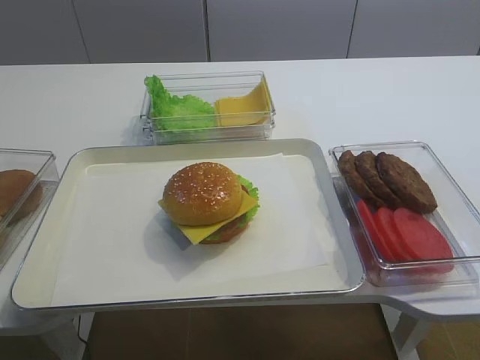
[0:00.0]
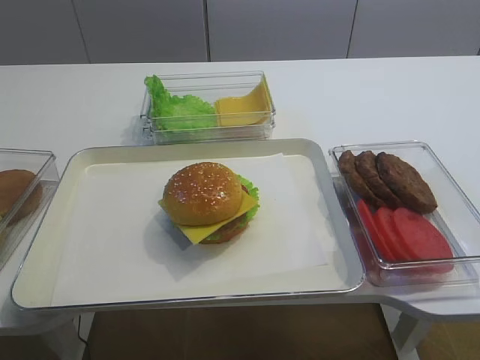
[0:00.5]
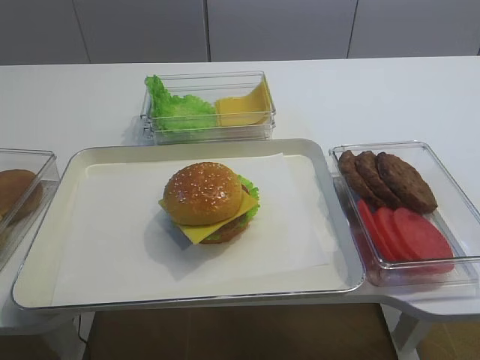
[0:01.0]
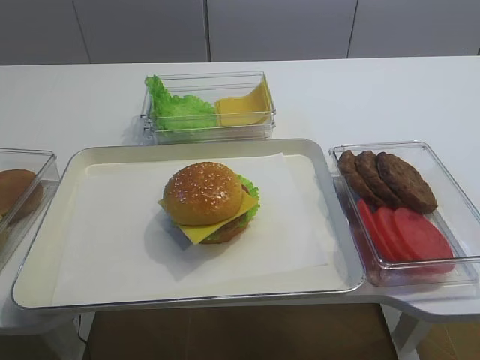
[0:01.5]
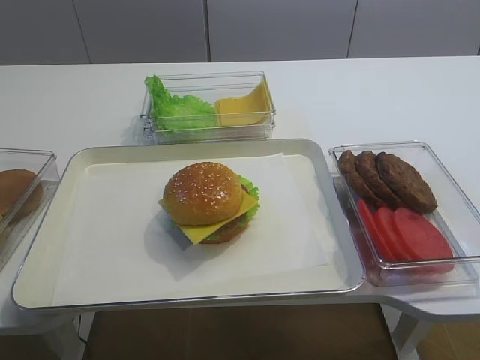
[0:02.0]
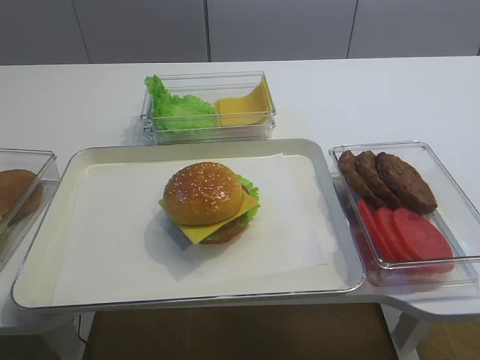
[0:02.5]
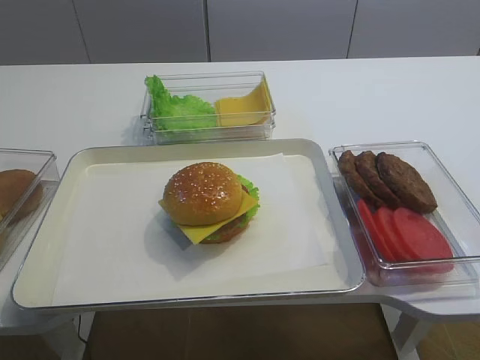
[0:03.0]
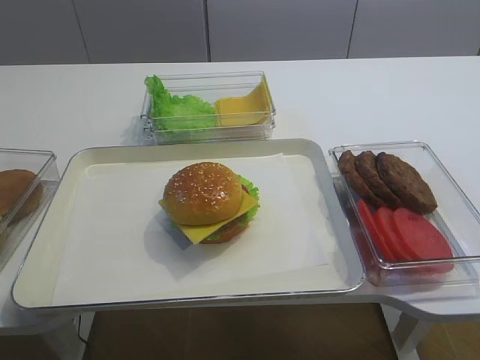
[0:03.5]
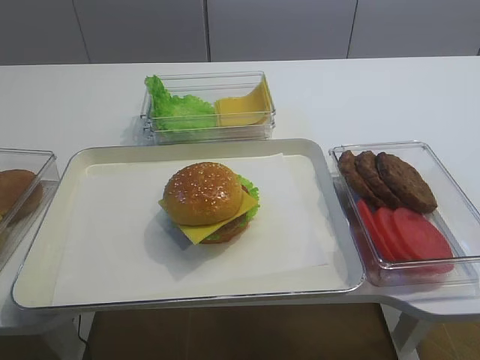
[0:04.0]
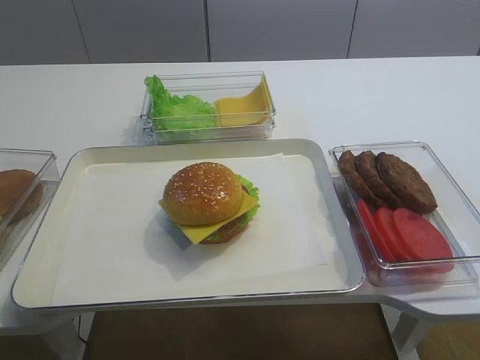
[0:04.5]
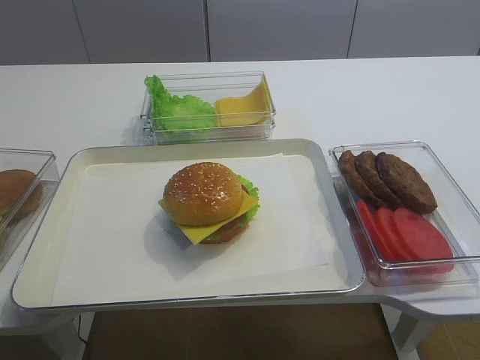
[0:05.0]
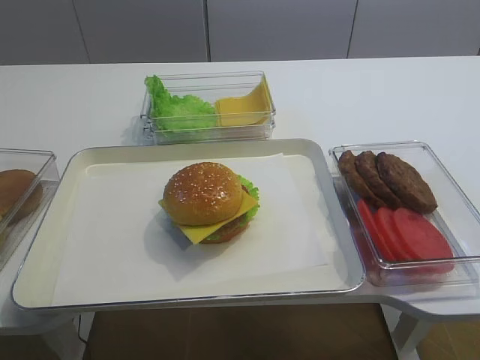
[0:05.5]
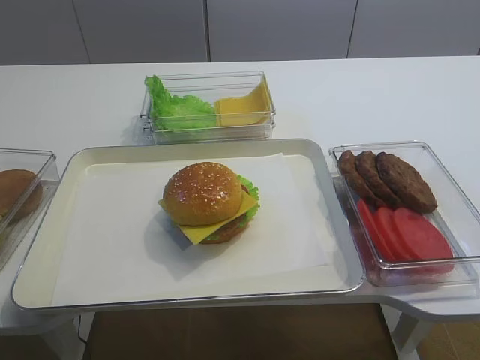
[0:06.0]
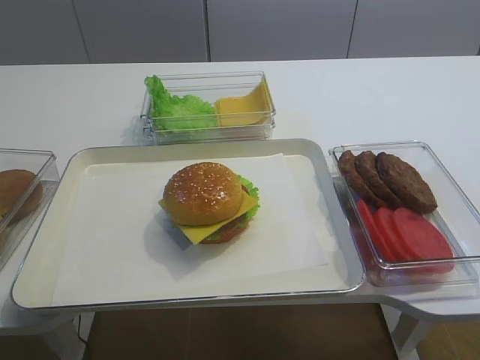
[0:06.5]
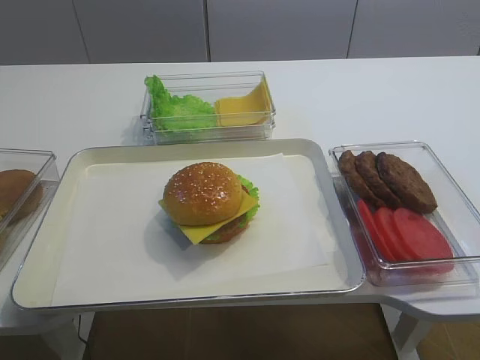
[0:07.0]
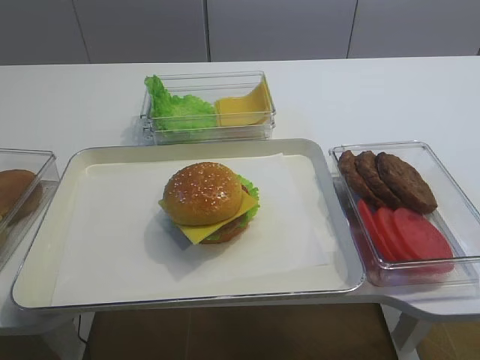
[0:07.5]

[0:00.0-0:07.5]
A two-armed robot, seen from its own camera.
0:00.0 to 0:07.5: Neither gripper changes place.

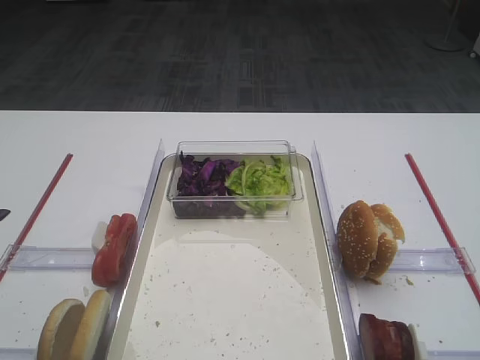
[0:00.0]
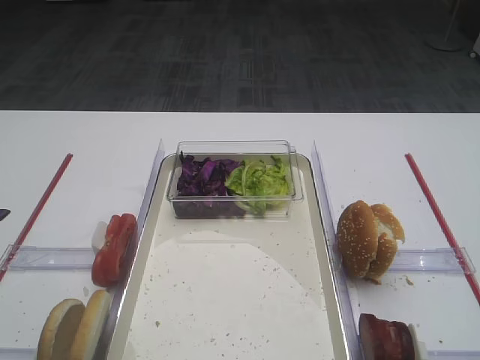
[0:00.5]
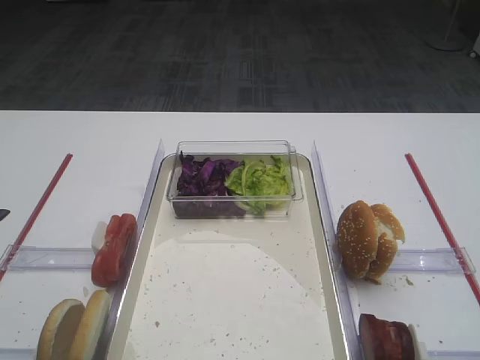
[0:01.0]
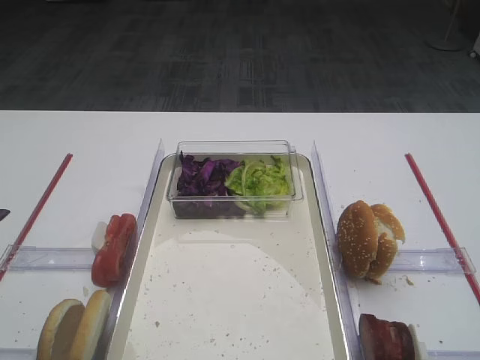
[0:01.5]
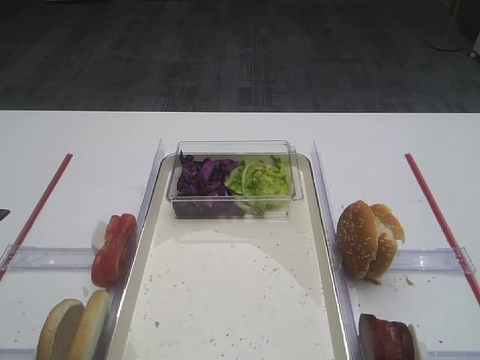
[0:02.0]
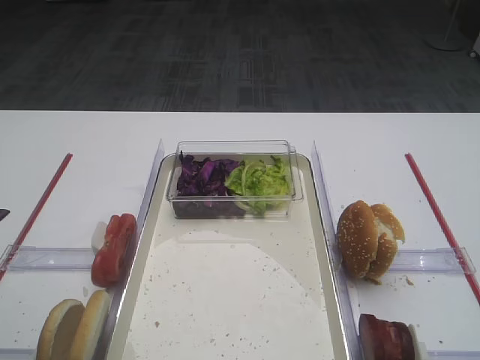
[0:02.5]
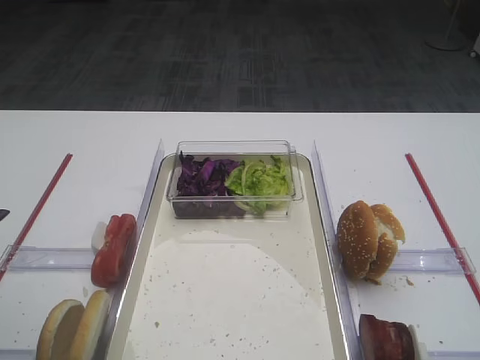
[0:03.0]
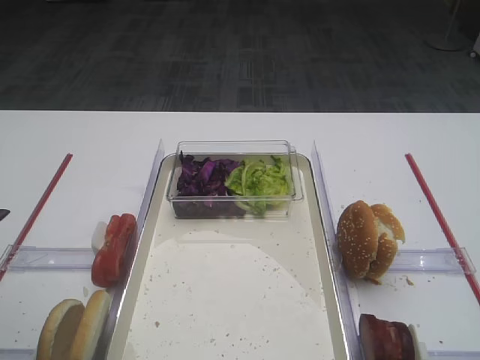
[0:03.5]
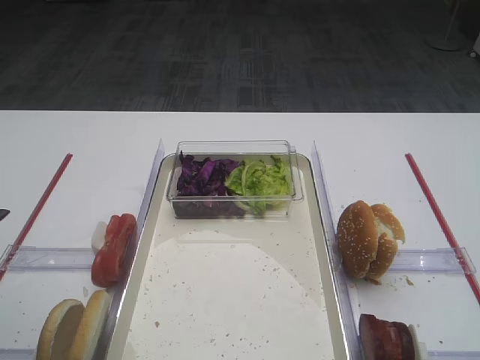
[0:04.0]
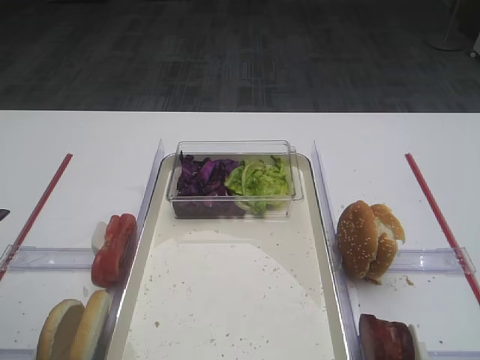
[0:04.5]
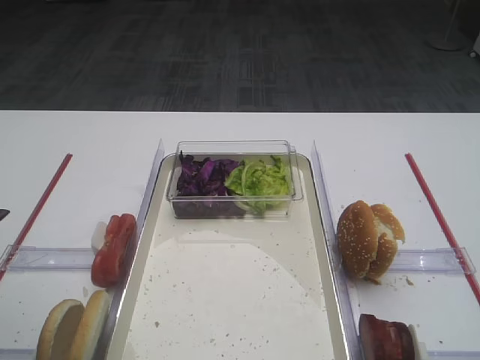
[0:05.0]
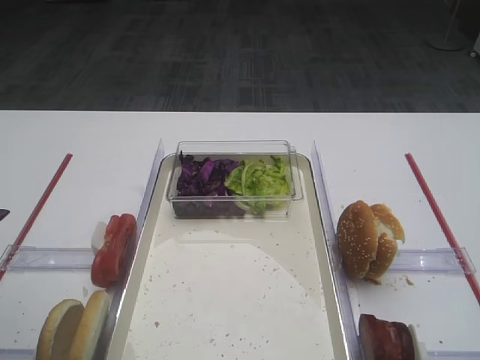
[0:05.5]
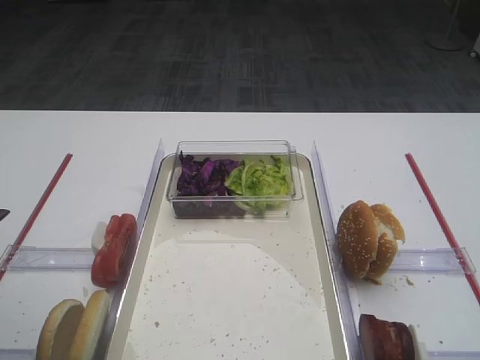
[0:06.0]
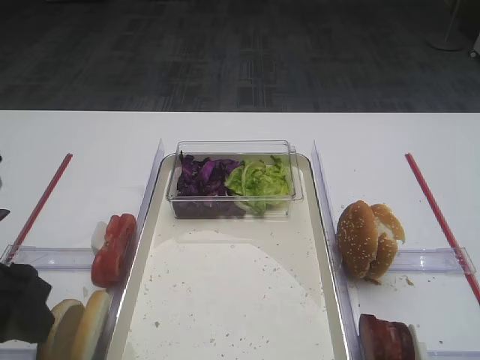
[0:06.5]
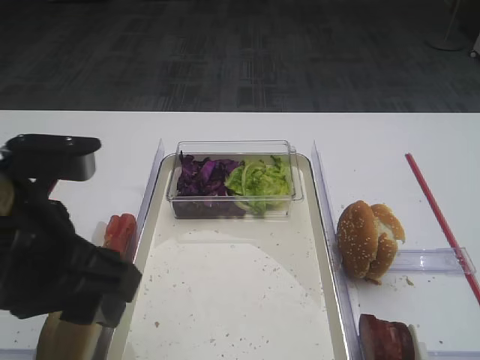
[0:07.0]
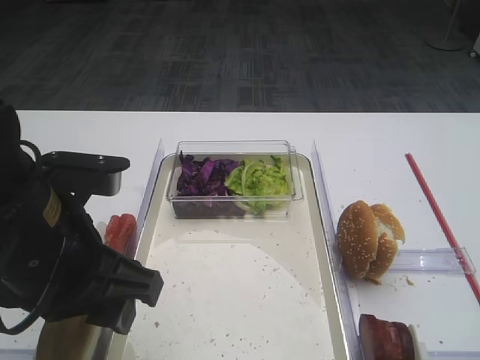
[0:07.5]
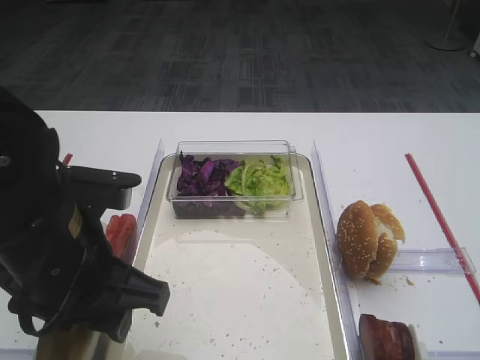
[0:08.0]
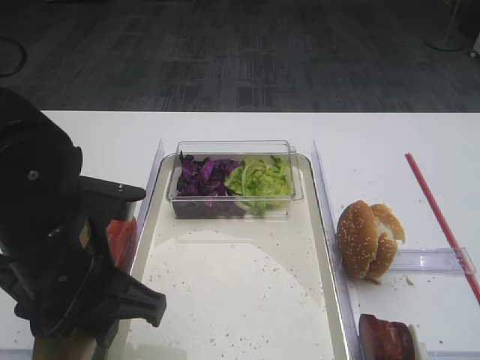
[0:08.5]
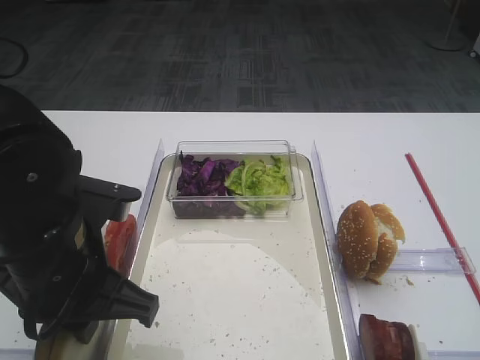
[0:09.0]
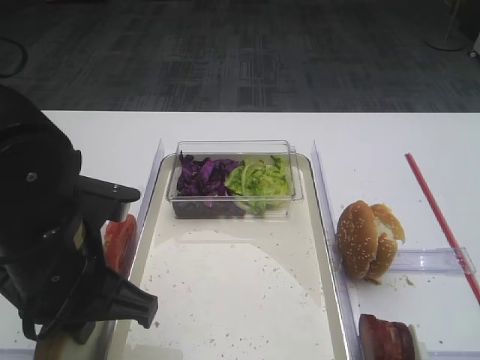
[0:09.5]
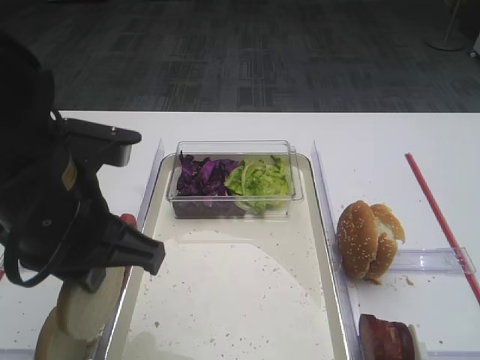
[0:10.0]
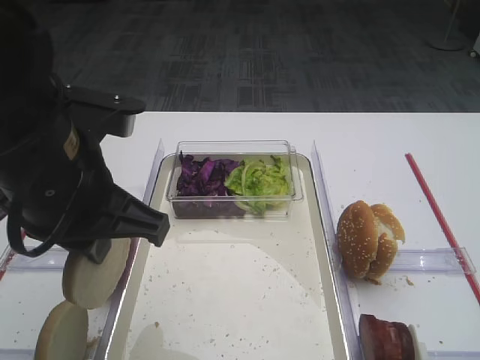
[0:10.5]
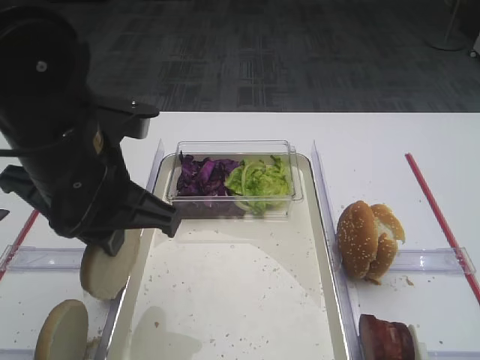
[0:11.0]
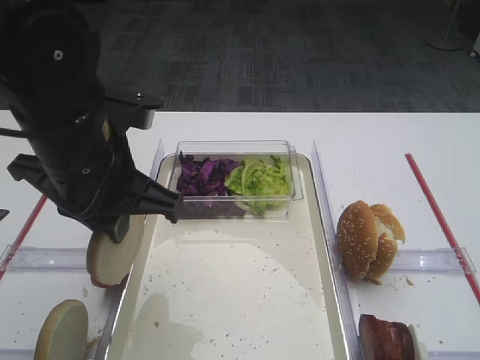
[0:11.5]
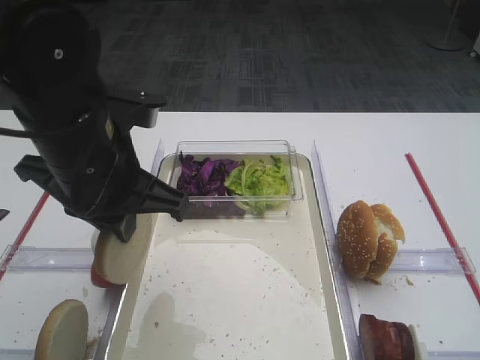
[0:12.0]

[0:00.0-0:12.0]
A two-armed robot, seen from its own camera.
Step, 0:00.0 to 0:09.5: Pick up the bread slice with the left gripper.
0:06.0 to 0:08.0: The left gripper moves to the right, roughly 15 cm.
0:08.0 to 0:10.0: The left gripper closes up.
0:10.0 to 0:12.0: The left gripper shifts roughly 5 cm forward.

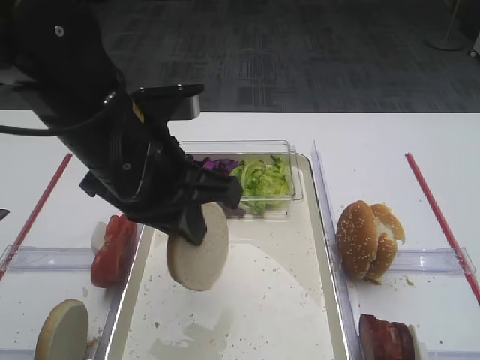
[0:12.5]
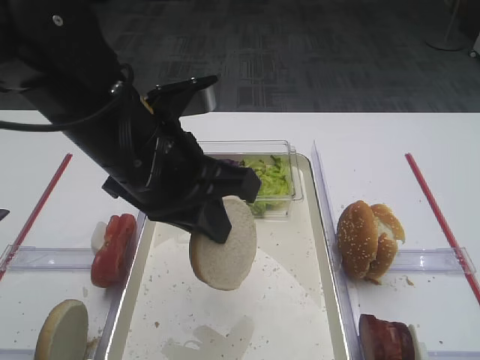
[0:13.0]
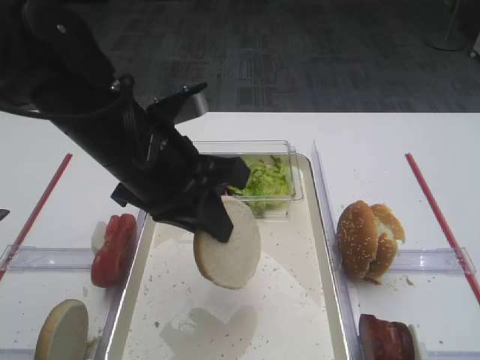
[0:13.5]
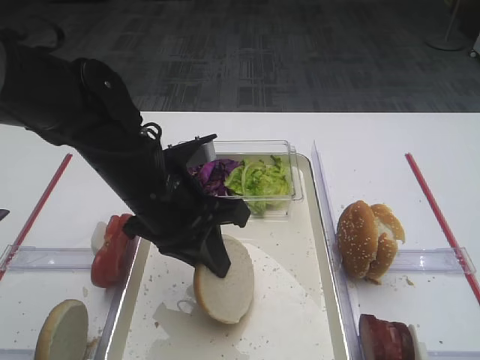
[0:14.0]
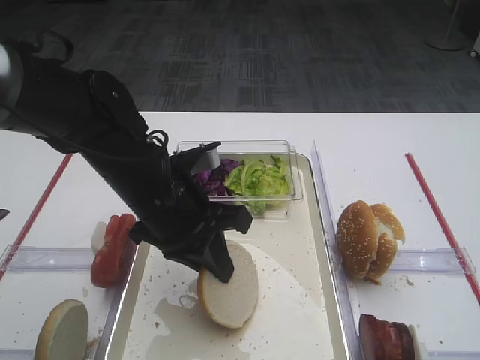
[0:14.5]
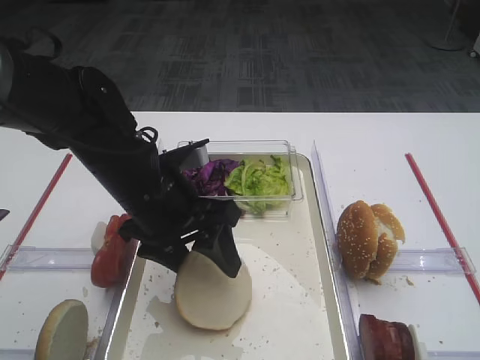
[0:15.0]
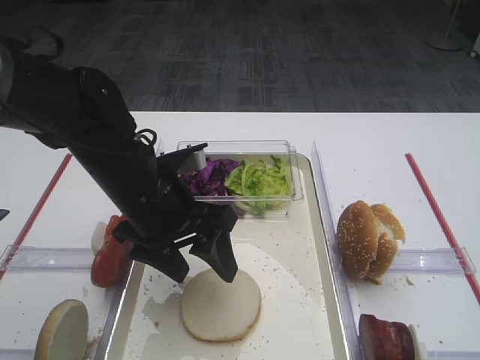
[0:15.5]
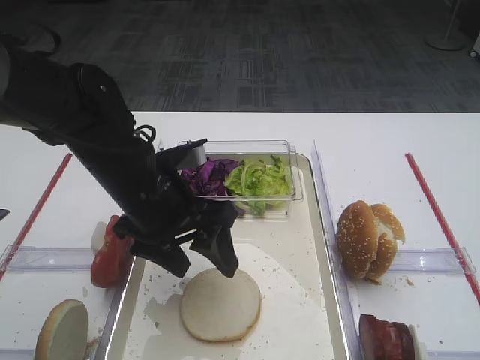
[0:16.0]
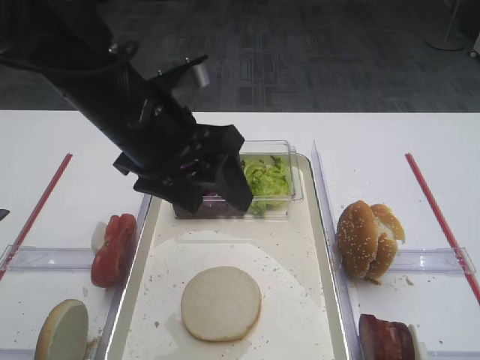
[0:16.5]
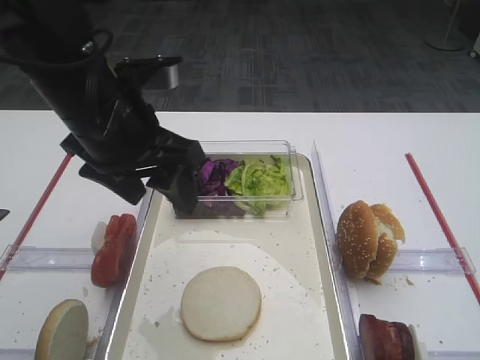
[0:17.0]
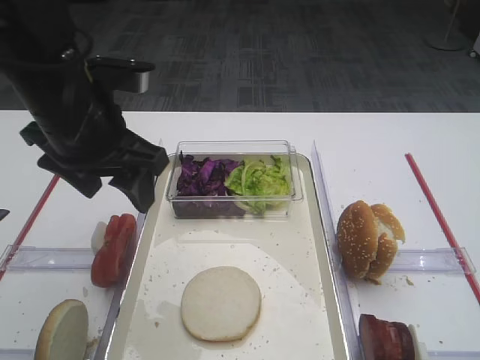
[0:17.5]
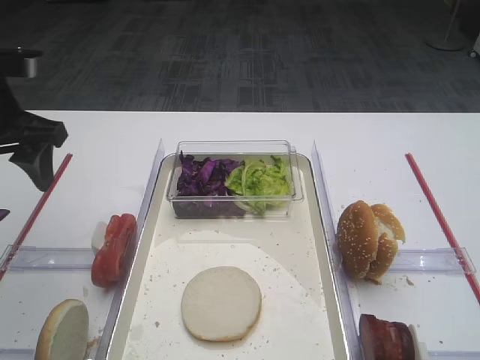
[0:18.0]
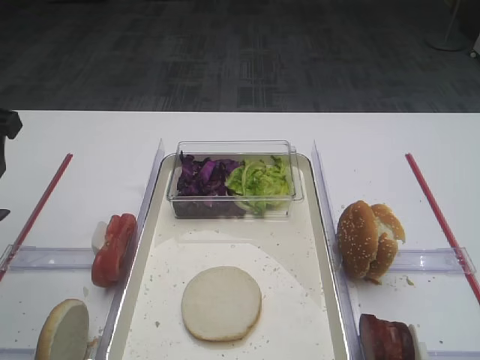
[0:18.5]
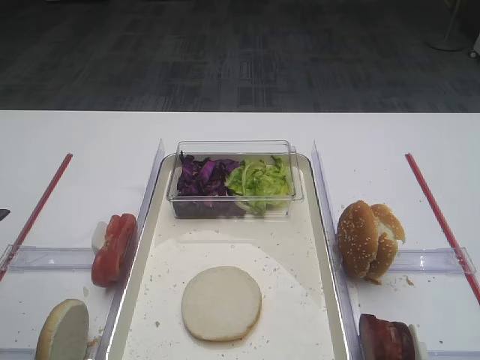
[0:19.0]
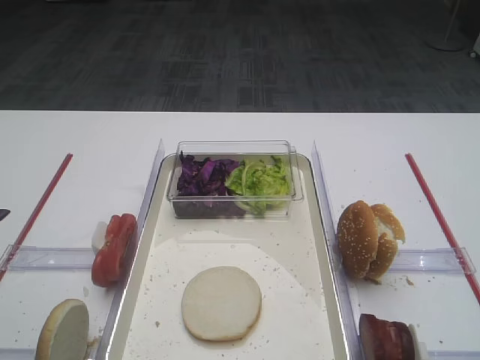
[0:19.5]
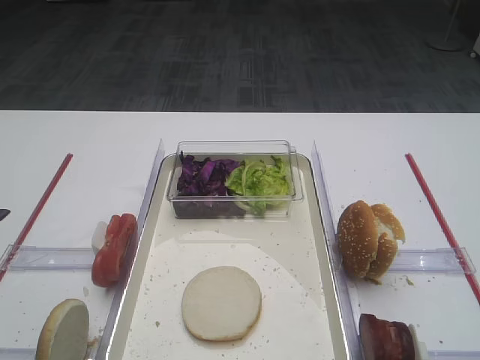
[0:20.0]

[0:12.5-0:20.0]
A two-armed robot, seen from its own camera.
Step, 0:12.5 to 0:16.0: Place the bread slice on the tray with the left gripper.
0:12.5 to 0:14.5: The left gripper travels downward by about 10 cm.
0:14.5 to 0:16.5: The left gripper travels upward by approximately 10 cm, and opens up.
0:16.5 to 0:18.0: The left gripper is displaced to the left by approximately 15 cm.
0:18.0 to 0:20.0: The left gripper goes some 25 cm backward.
